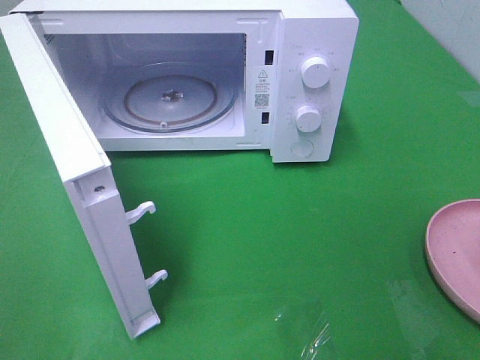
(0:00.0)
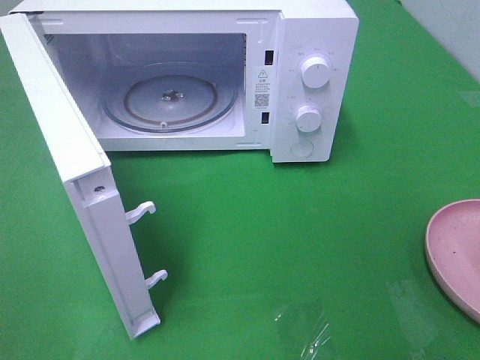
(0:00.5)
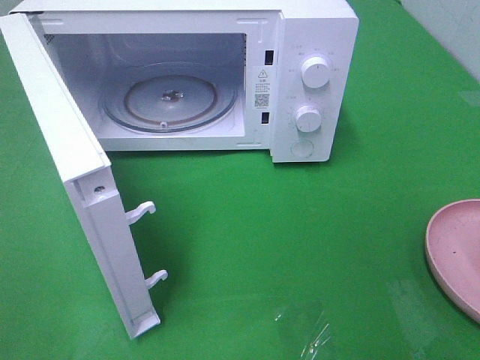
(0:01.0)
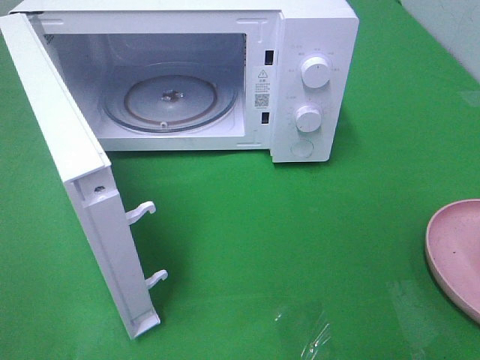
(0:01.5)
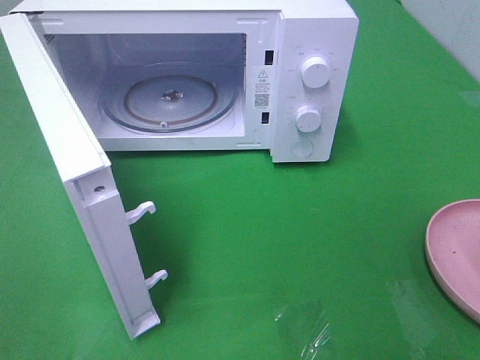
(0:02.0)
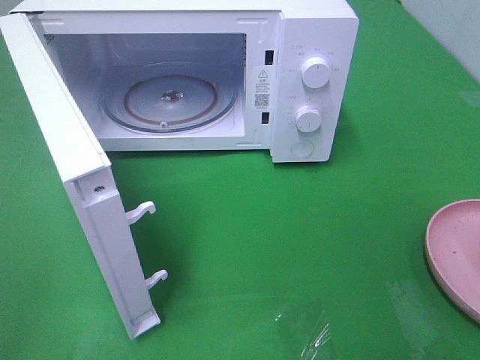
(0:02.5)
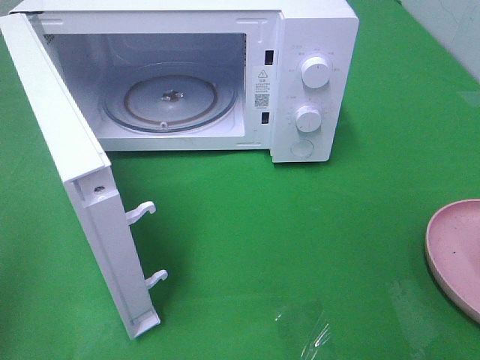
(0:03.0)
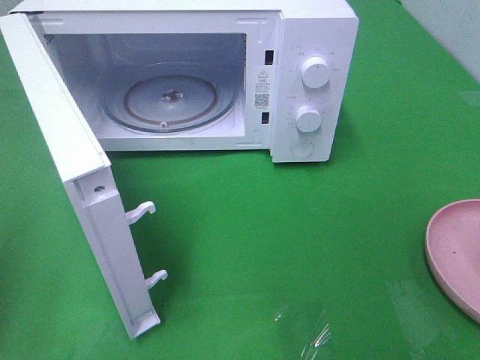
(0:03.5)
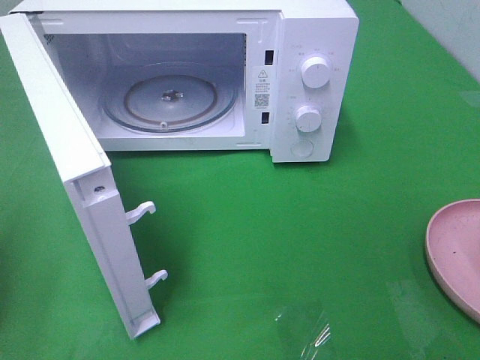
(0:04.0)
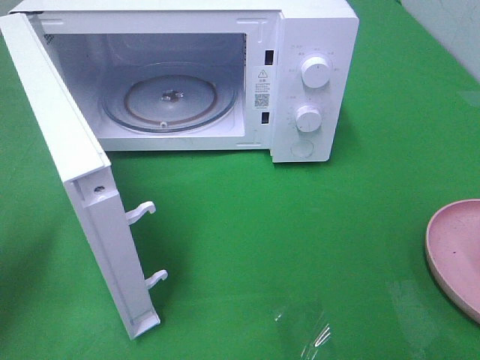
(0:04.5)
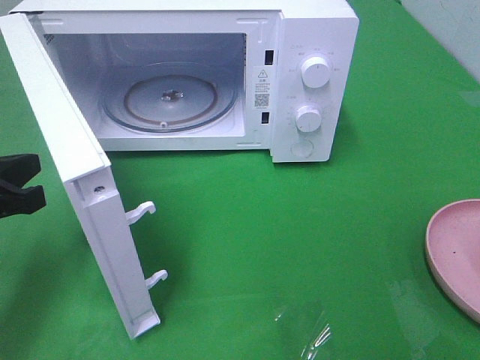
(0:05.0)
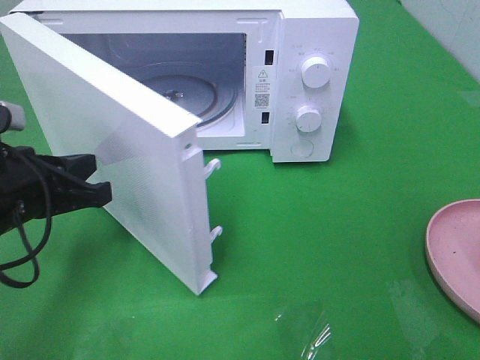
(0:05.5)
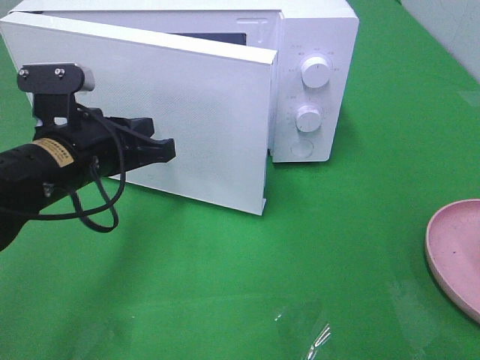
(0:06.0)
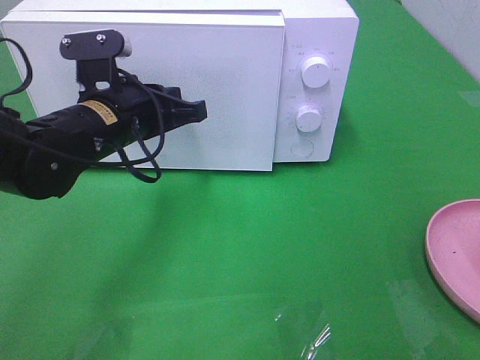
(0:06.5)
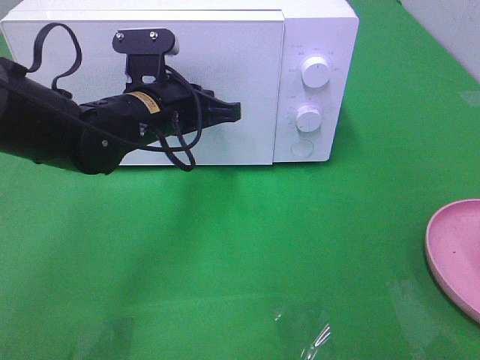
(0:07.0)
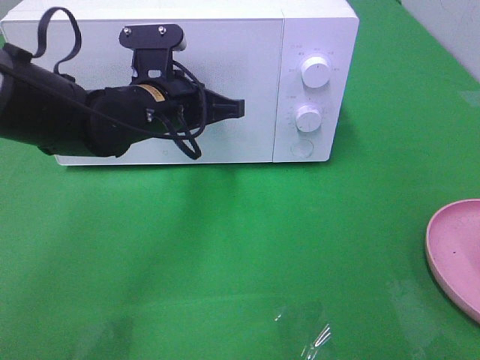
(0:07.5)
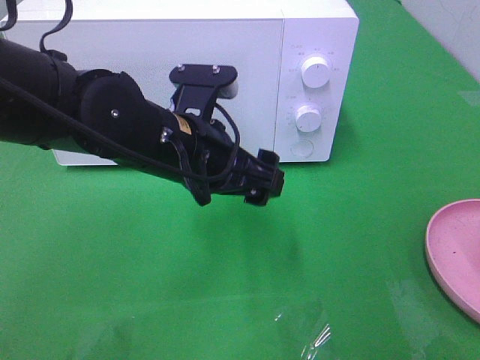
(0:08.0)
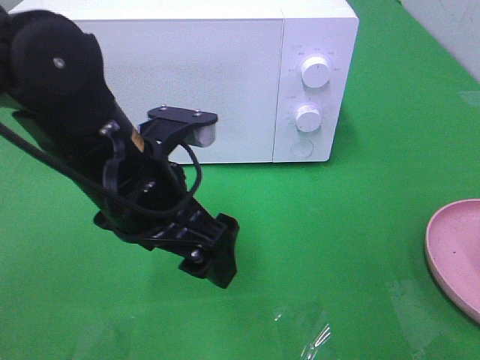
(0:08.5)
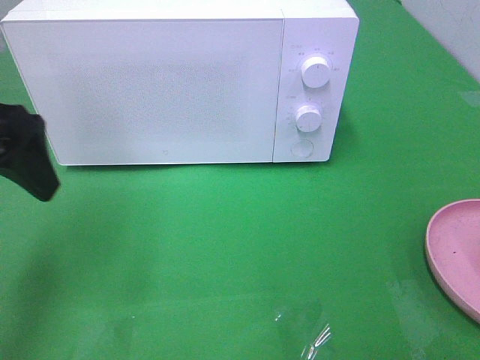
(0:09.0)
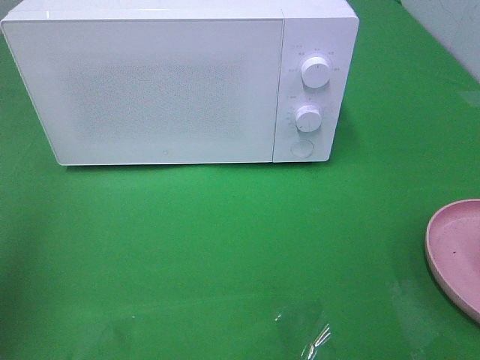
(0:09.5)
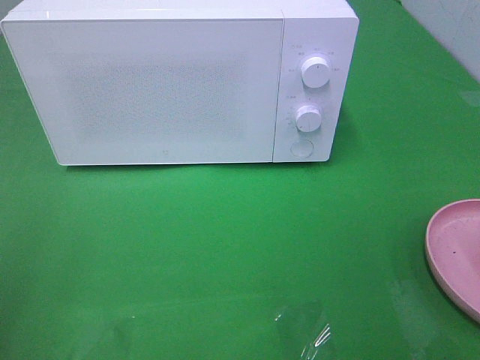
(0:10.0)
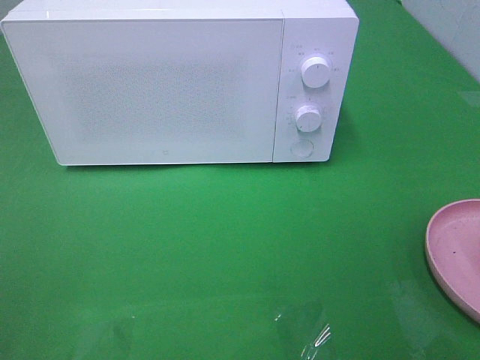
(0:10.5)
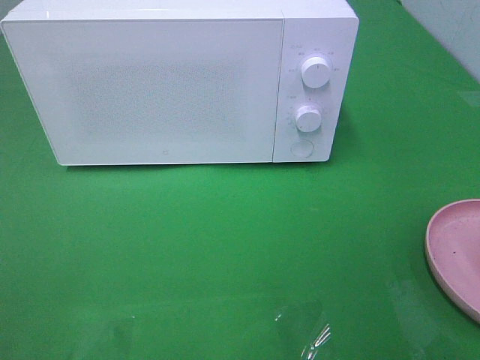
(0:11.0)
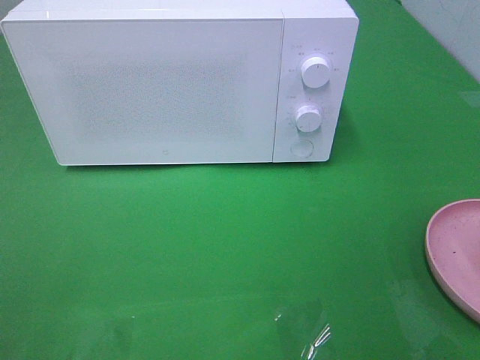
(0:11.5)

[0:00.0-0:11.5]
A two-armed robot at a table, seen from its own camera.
Task of the whole recording: Heat the burger.
Step, 0:00.0 to 0:07.5: Left hand: close the microwave door.
0:04.0 to 0:06.0: The left gripper travels to the right and forward by some 20 cm.
0:06.0 to 0:07.5: The left gripper travels to the right and forward by roughly 10 cm.
0:07.5 to 0:09.5: The left gripper travels to the left, backward and upward by about 35 cm, and opens.
0:09.5 to 0:11.5: The left gripper goes roughly 15 cm backward.

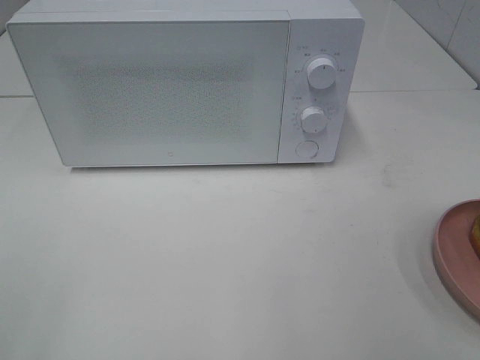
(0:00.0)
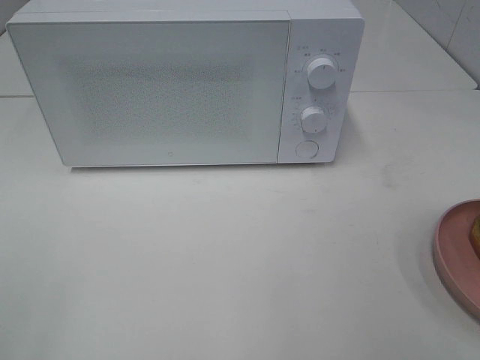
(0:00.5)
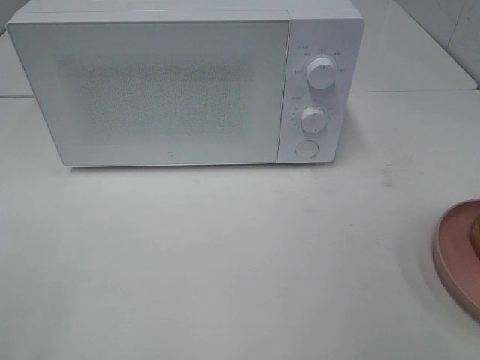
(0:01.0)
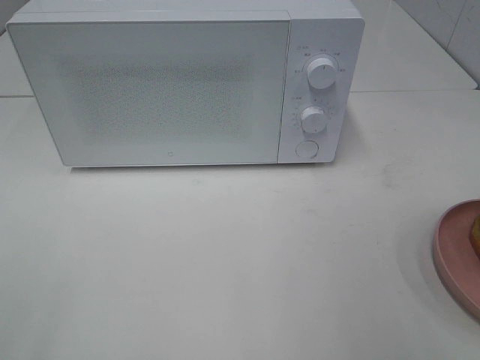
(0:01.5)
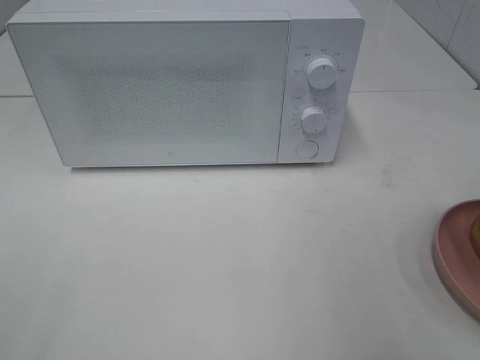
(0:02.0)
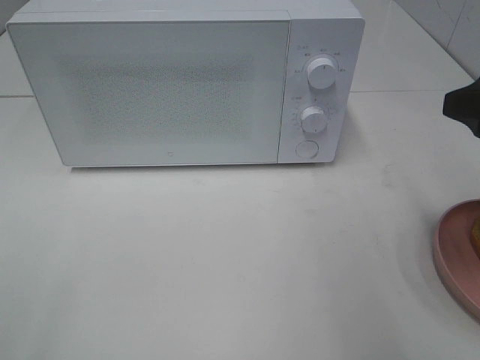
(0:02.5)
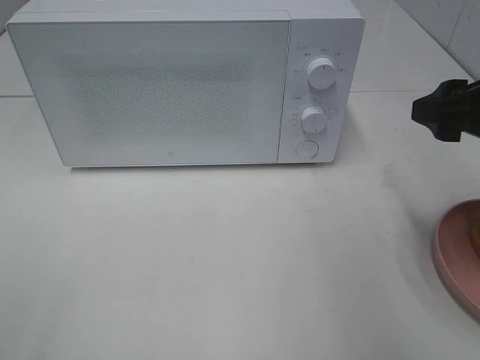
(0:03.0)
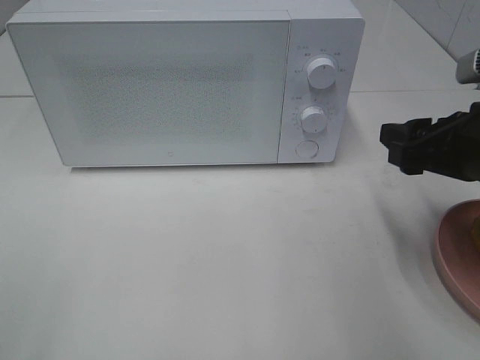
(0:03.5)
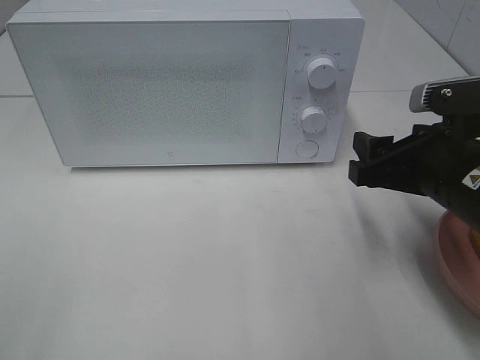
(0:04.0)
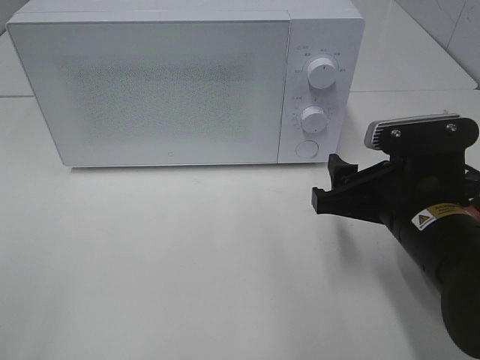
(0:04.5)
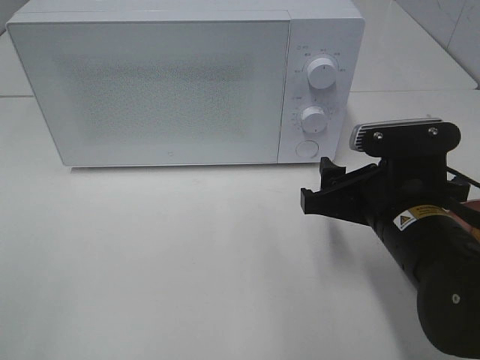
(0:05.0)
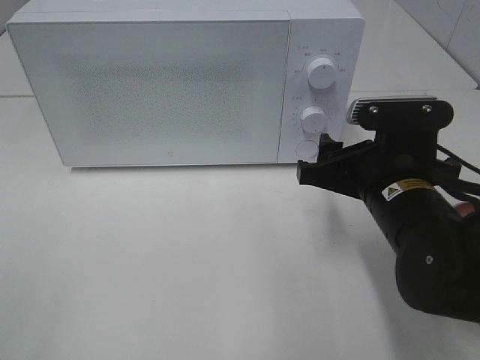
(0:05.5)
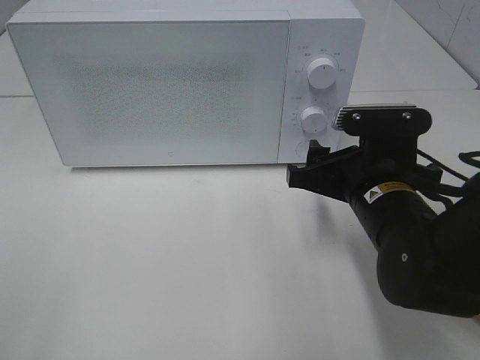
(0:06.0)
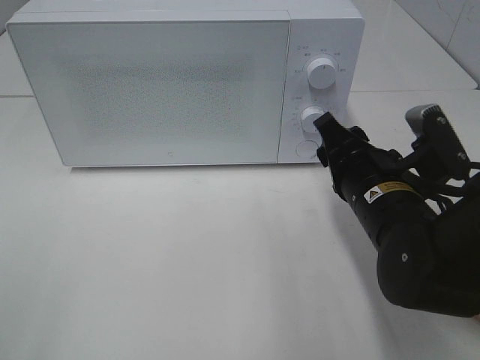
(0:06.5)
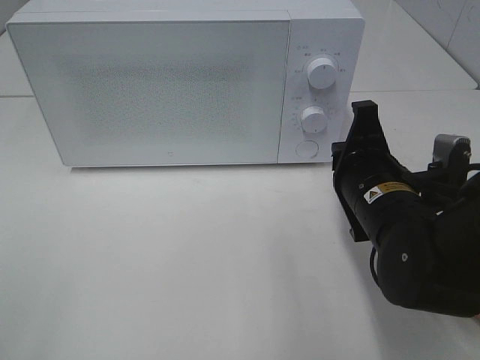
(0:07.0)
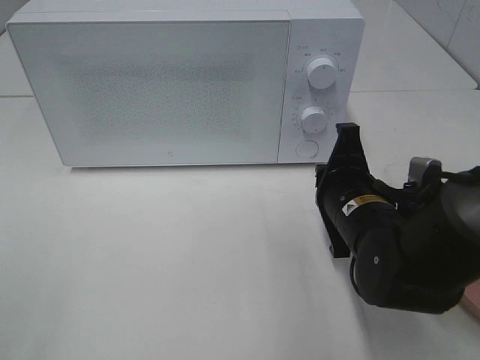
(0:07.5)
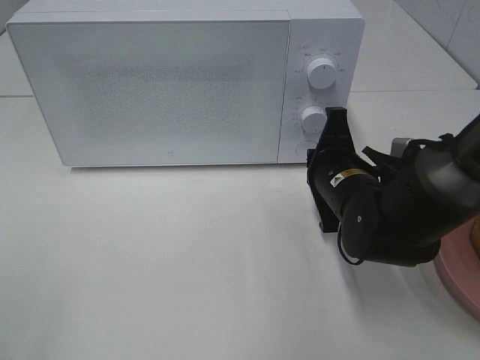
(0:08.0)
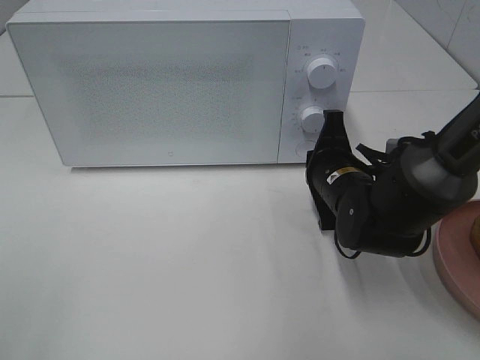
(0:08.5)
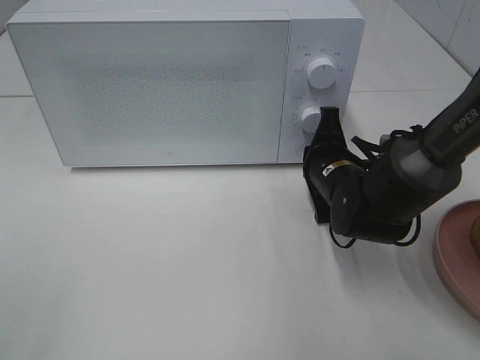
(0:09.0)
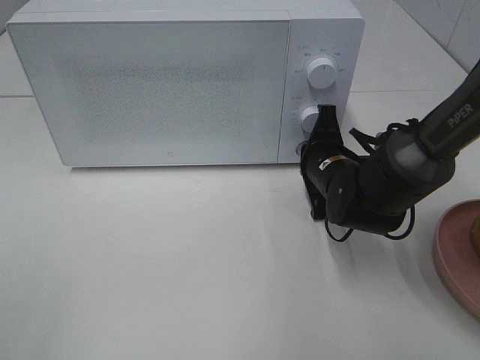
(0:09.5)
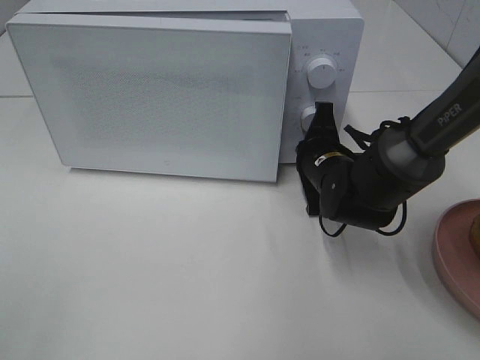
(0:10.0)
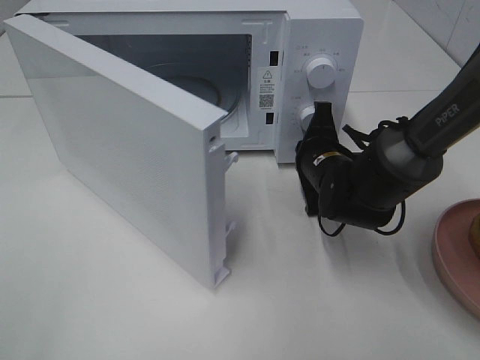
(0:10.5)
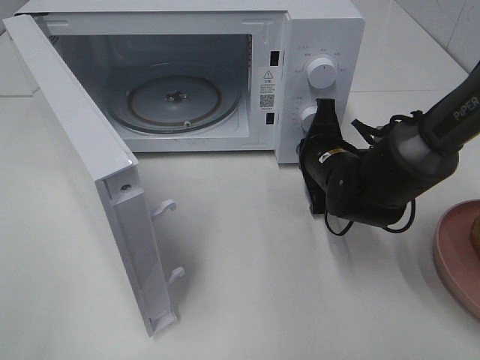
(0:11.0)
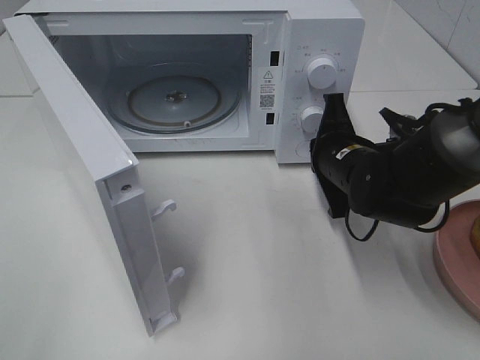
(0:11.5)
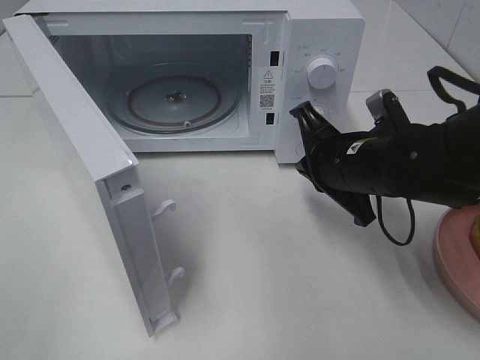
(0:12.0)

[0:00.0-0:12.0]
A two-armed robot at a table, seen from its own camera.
Task of the whole recording: Heat the burger.
Step, 0:00.0 to 0:11.0: Right hand: press the switch.
0:02.0 to 0:04.0: The right gripper travels downward, forward and to the left by about 15 cm.
0:04.0 to 0:06.0: The right gripper goes roughly 5 cm to the left.
0:06.0 to 0:08.0: The right gripper travels forward by about 5 cm, and closes.
0:08.0 to 0:10.0: The right gripper travels forward by roughly 5 cm.
0:10.0 to 0:12.0: The right gripper shifts about 10 cm backward and upward.

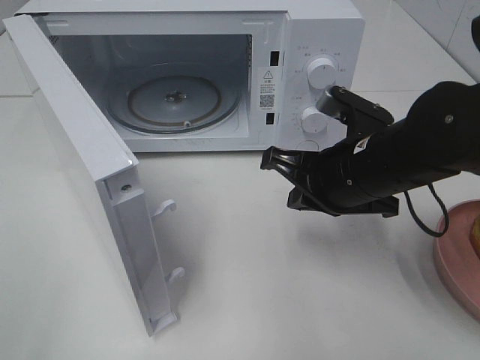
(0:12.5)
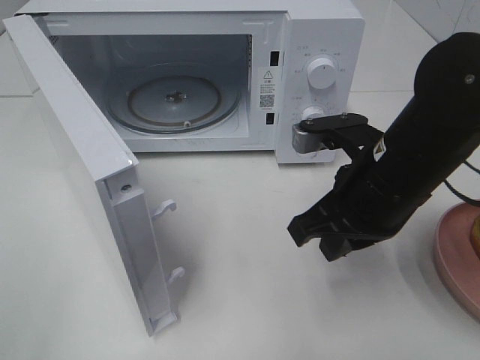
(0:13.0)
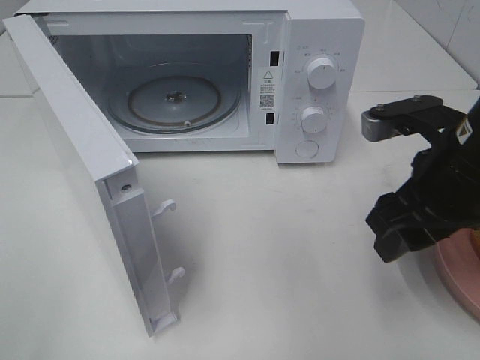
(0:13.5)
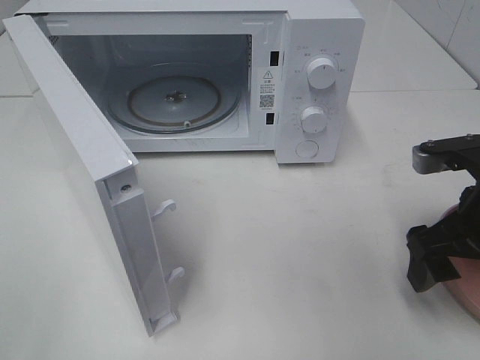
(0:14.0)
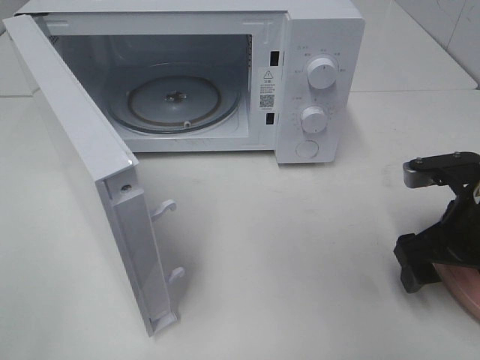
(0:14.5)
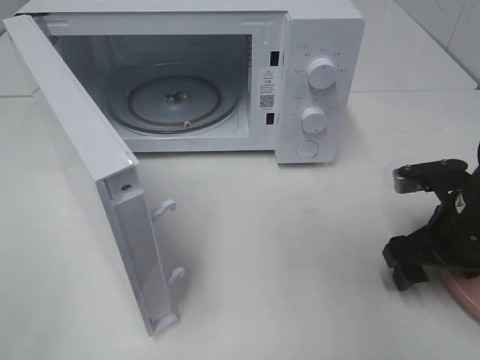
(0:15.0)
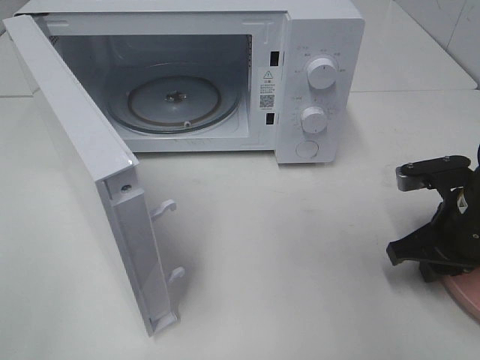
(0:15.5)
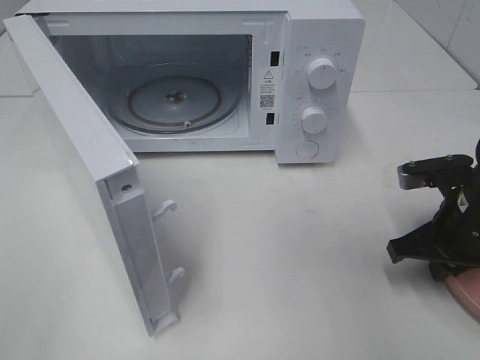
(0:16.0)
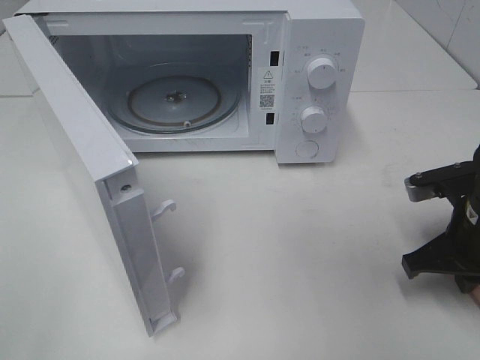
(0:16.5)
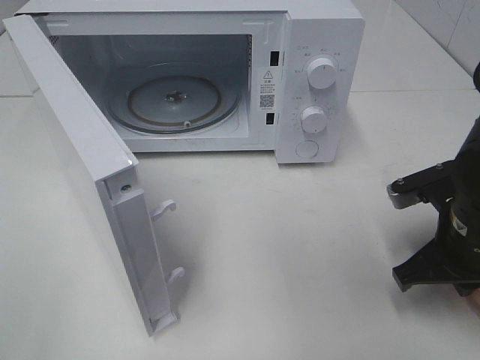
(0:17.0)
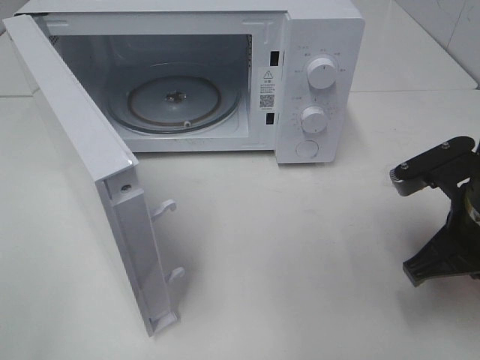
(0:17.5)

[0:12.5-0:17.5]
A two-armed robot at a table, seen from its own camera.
Task of the whole recording: Heat the burger.
Step, 0:12.5 to 0:16.0: Right hand: grab the plate with the hamburger.
0:12.5 to 0:15.0: The right gripper travels to the right and downward by about 15 cm, and opens.
0:15.0 to 0:17.5: The right gripper shifts approximately 5 cm upward, and closes its fingers.